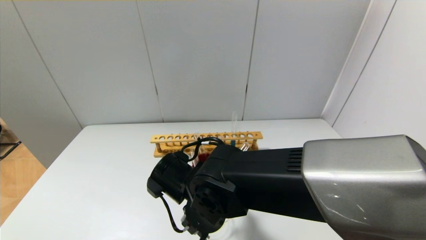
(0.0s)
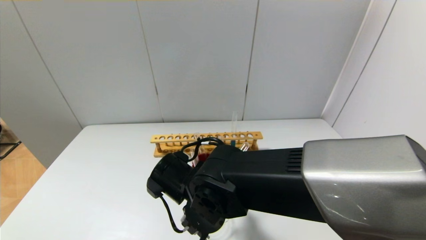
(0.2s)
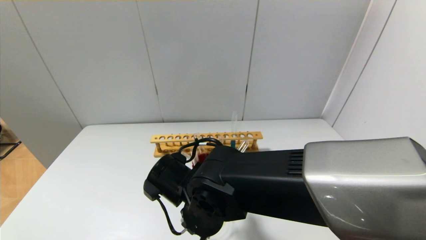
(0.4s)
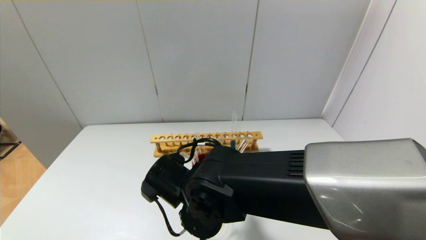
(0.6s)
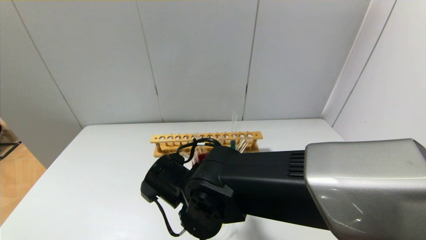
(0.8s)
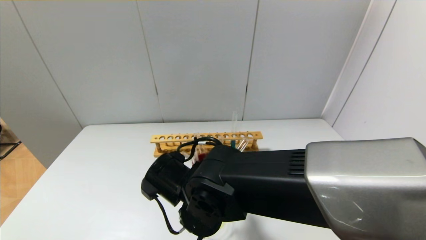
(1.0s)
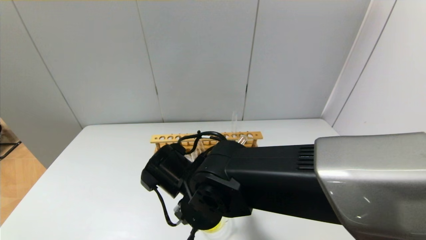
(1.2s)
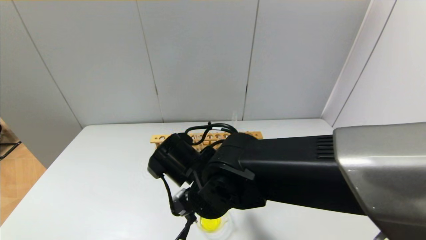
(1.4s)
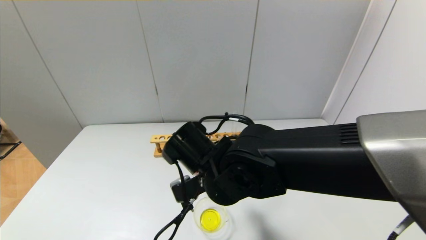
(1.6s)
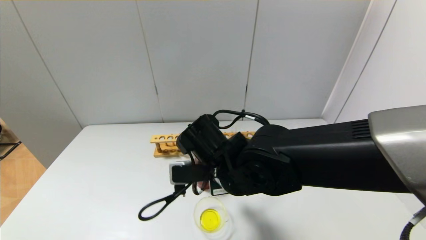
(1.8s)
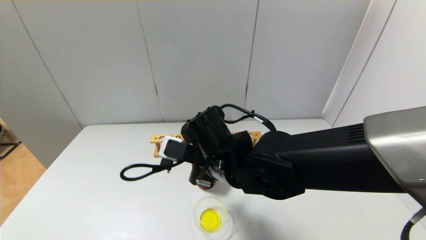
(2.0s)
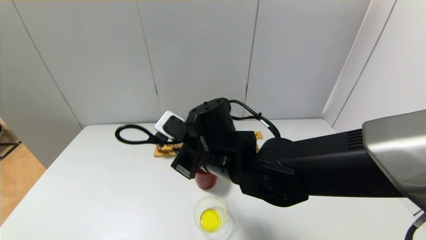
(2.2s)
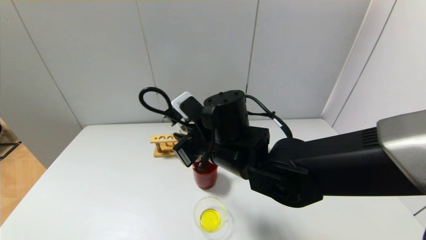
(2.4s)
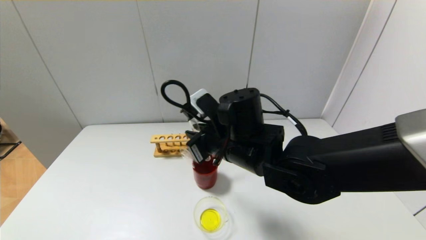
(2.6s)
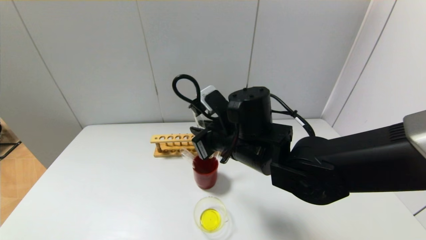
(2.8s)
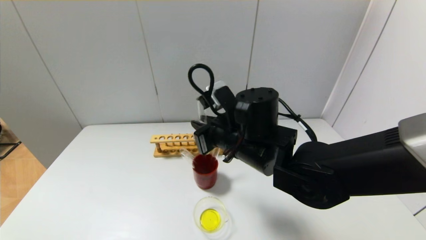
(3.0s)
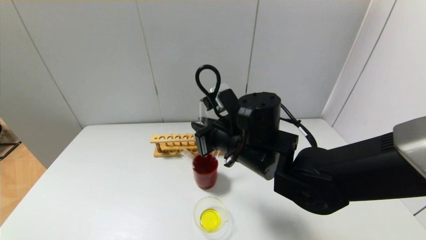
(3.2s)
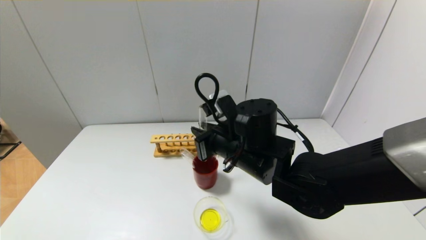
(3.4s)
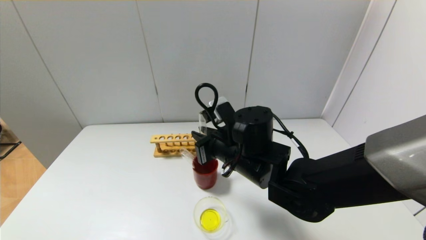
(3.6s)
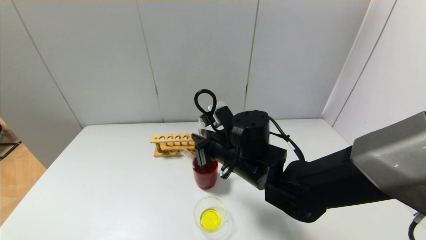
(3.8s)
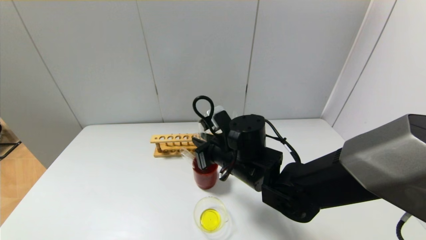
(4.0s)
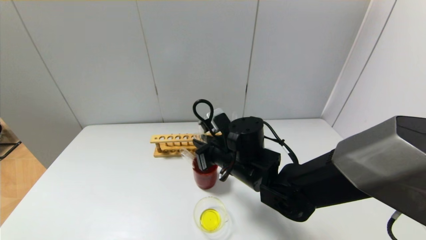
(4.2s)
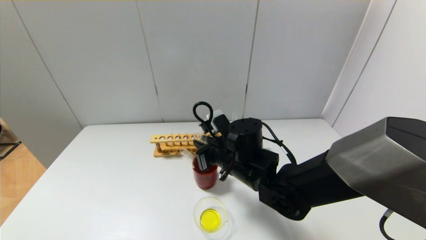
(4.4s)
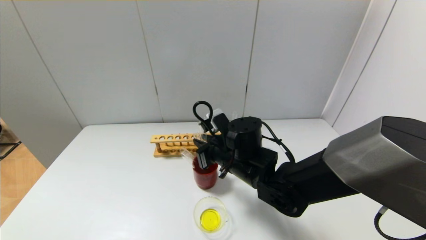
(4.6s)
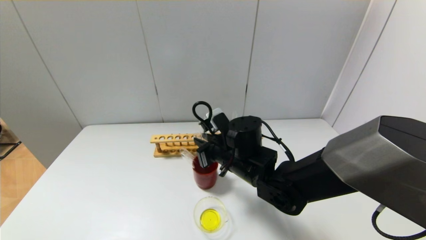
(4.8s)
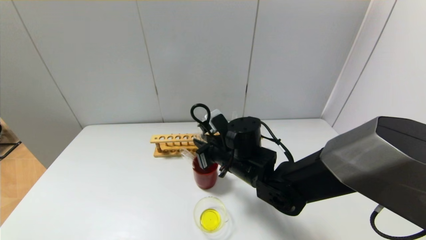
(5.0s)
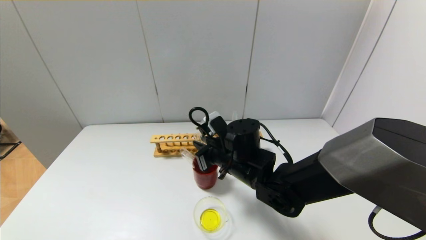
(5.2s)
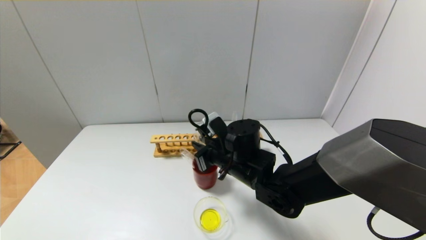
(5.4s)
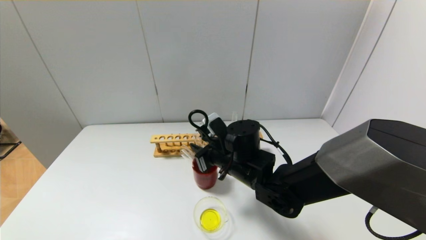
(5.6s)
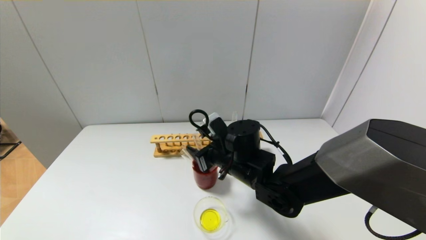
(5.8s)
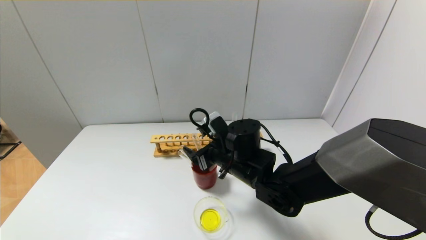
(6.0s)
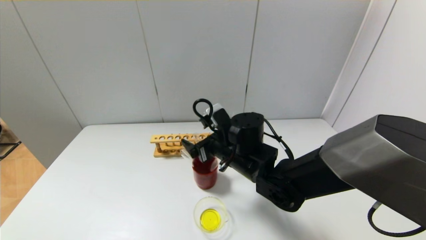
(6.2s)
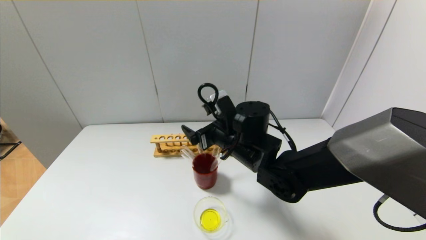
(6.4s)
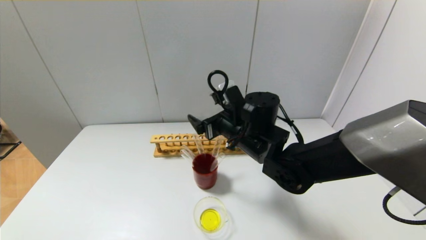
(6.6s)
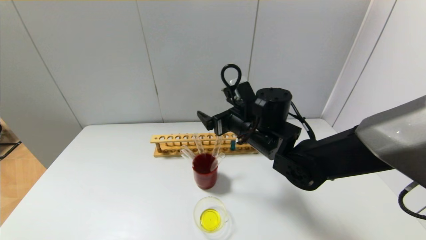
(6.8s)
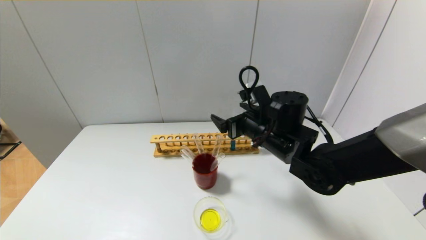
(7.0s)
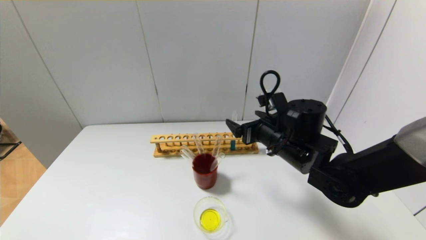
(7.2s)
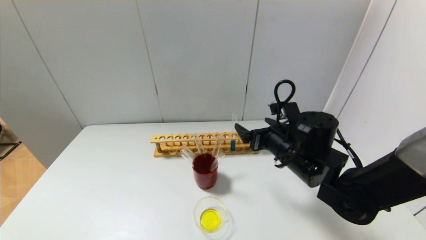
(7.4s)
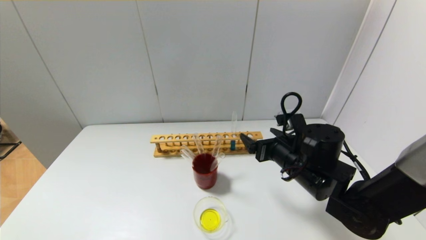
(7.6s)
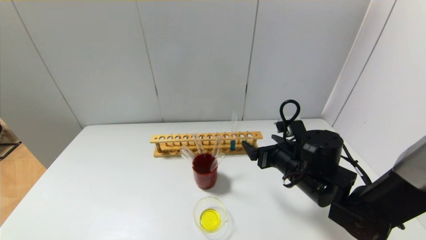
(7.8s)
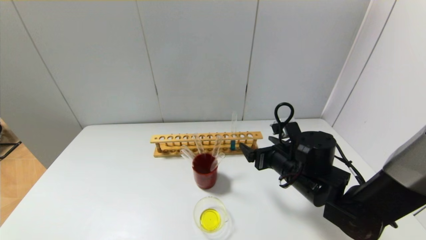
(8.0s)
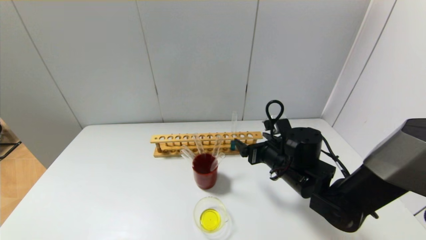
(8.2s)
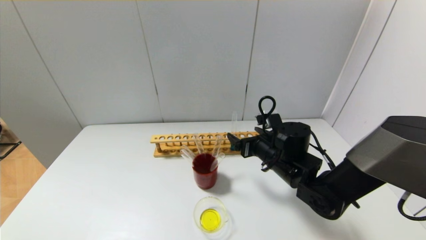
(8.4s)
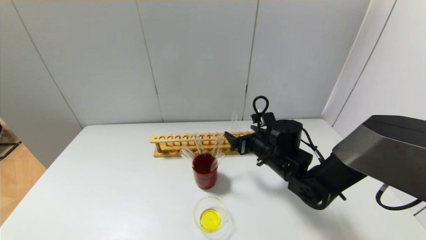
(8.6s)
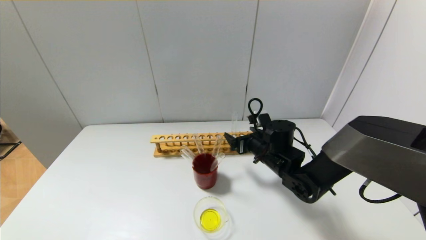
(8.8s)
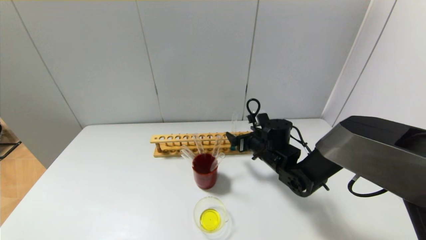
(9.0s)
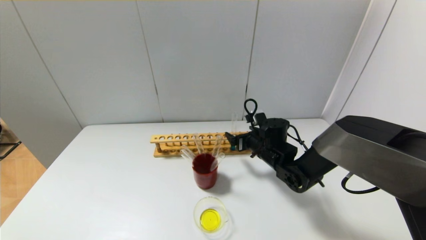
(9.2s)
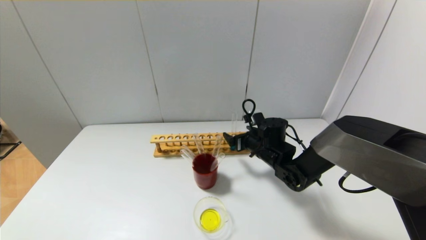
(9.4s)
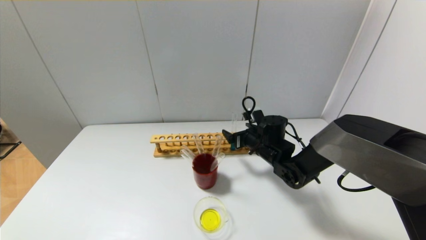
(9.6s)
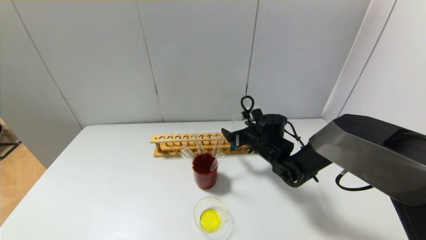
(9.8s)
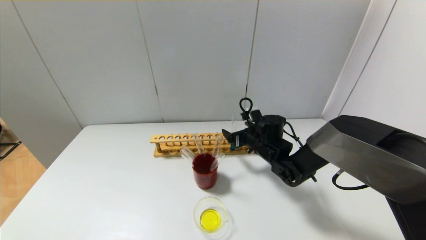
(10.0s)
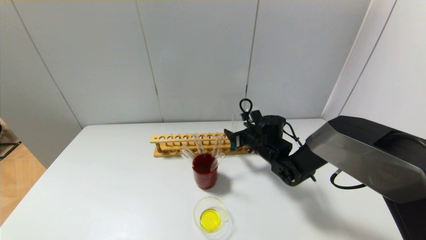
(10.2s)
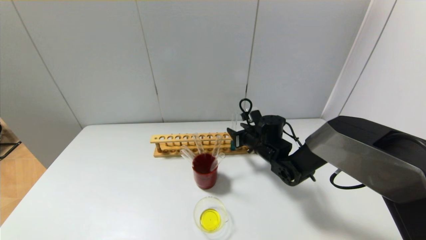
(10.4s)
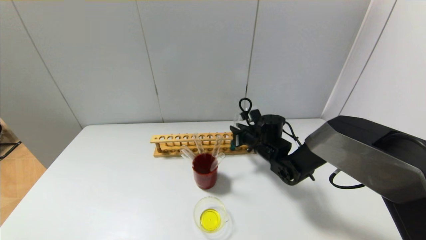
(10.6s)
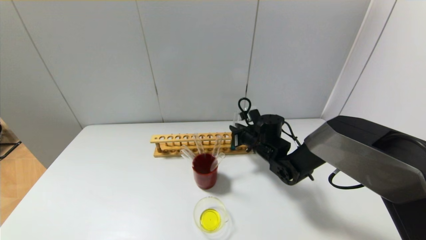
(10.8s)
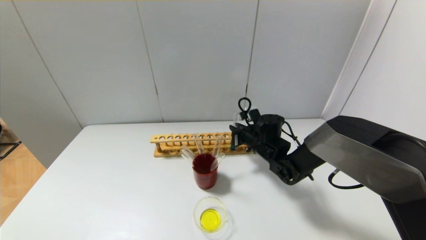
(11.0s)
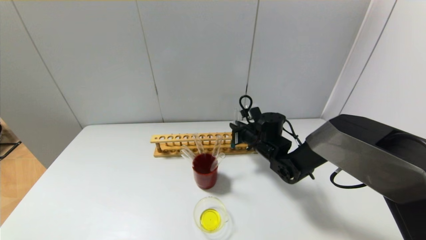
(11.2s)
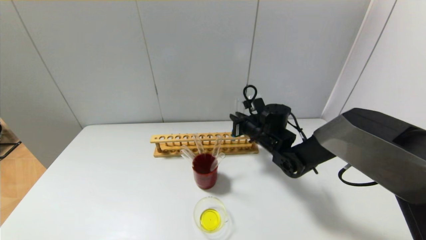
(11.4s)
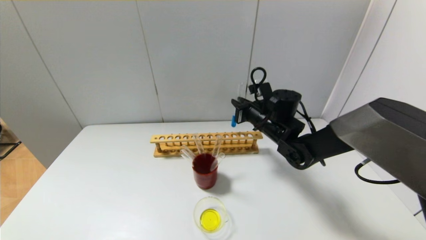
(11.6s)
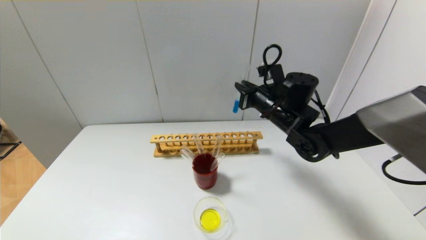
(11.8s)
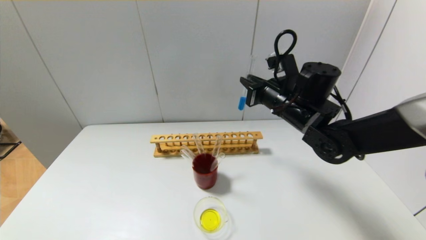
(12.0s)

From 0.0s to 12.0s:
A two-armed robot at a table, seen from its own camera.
Step, from 1.2s to 5.8s: Place the test tube into the brown cup with the right gripper.
Step, from 6.0s to 11.0s: Grasp the blue reagent with the right gripper.
From 1.6s to 3.0s: The right gripper ends up about 5 cm from where it was.
From 3.0s to 4.4s: The right gripper travels downward by some 5 cm.
From 4.4s to 6.0s: The right gripper opens its fingers.
From 6.0s to 7.6s: The right gripper heads to the right, covering approximately 10 cm.
From 7.6s to 9.0s: The right gripper heads forward and downward, covering about 10 cm.
From 9.0s to 10.4s: The right gripper closes up.
From 10.4s to 12.0s: The right gripper travels upward by roughly 15 cm, and closes up.

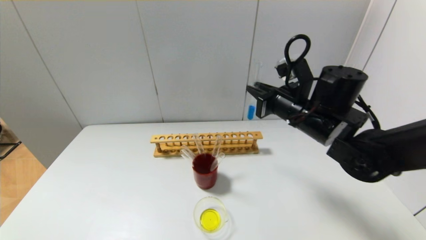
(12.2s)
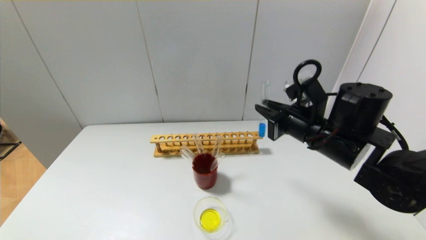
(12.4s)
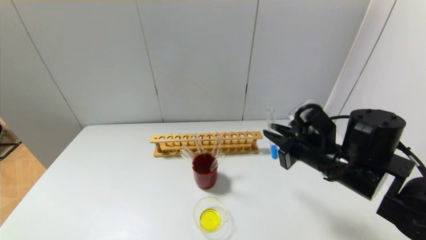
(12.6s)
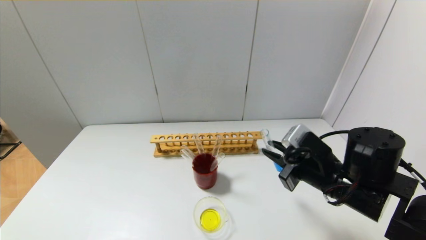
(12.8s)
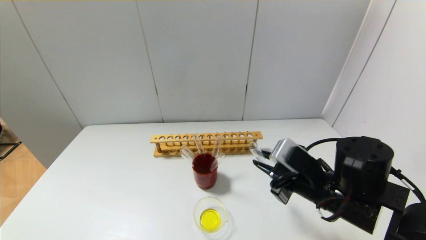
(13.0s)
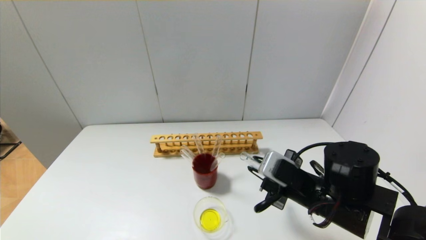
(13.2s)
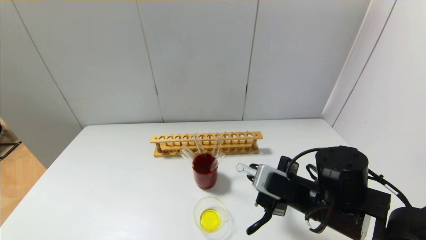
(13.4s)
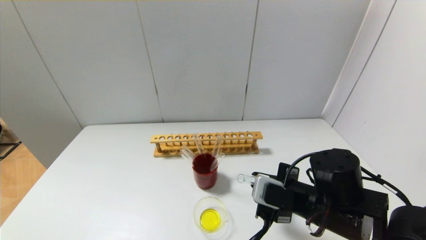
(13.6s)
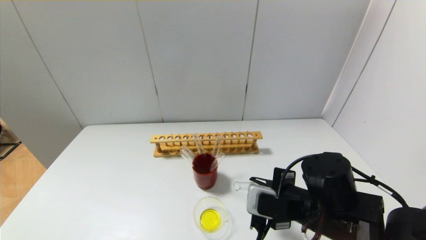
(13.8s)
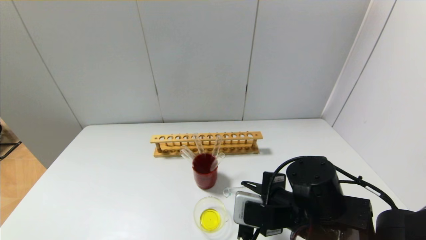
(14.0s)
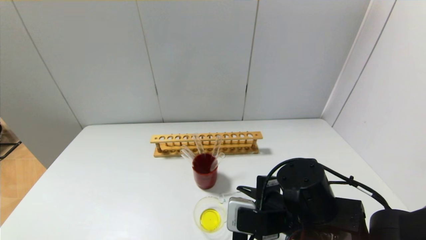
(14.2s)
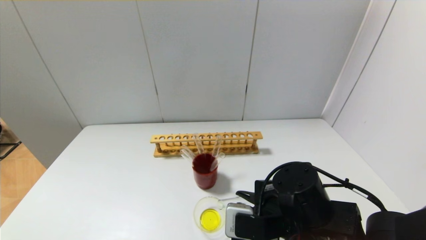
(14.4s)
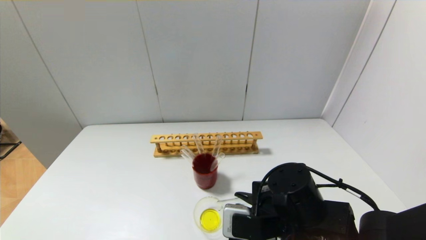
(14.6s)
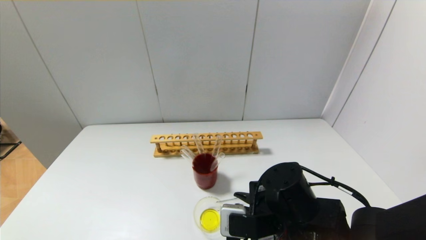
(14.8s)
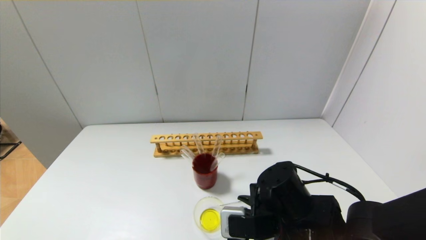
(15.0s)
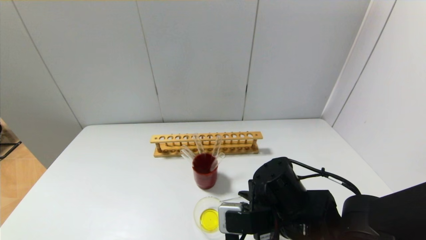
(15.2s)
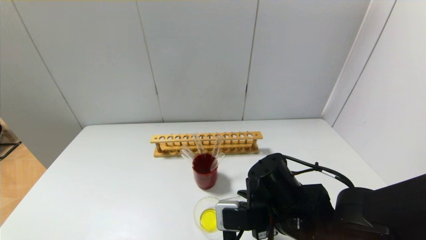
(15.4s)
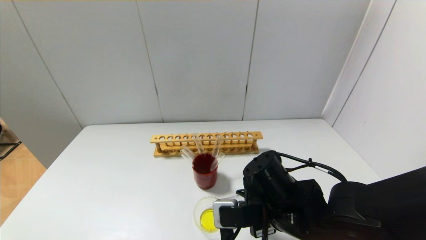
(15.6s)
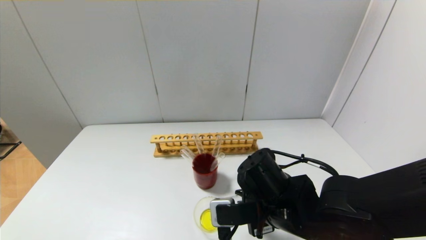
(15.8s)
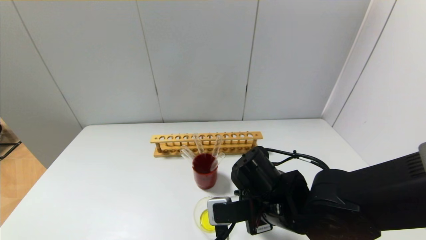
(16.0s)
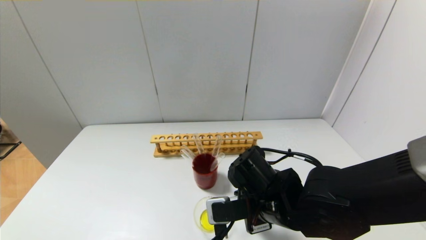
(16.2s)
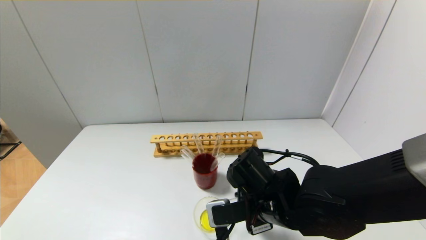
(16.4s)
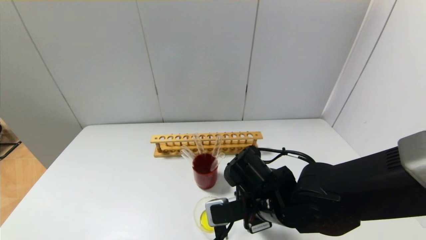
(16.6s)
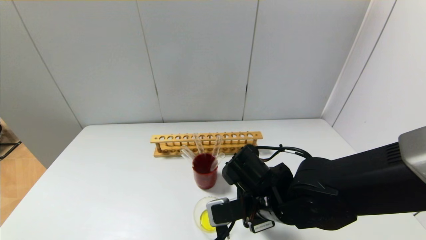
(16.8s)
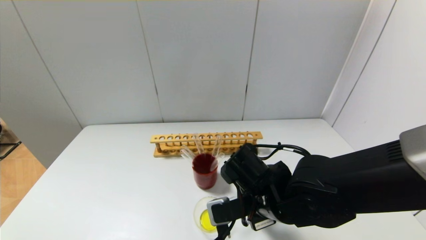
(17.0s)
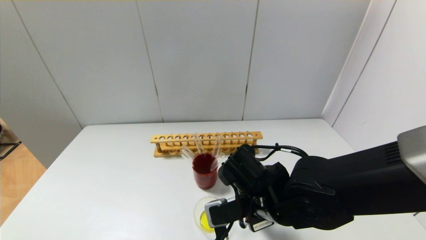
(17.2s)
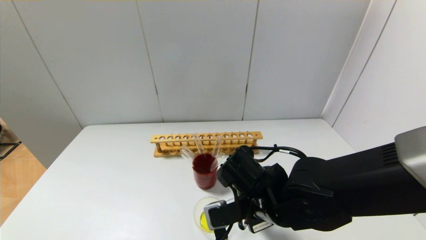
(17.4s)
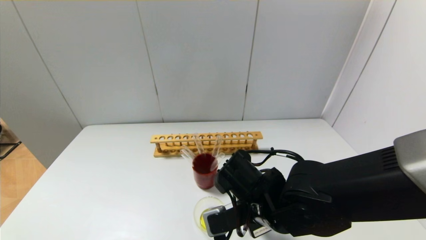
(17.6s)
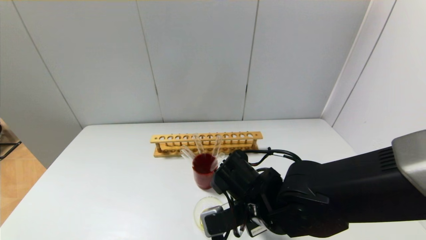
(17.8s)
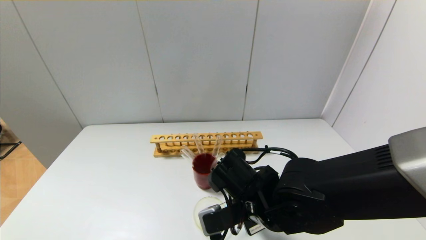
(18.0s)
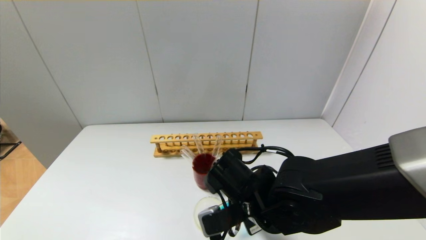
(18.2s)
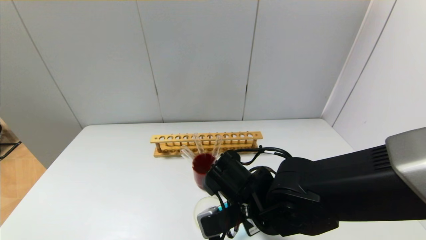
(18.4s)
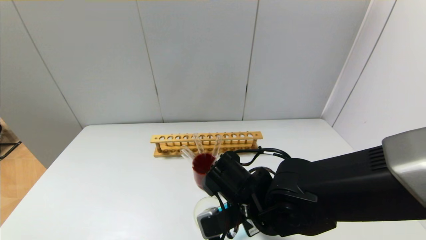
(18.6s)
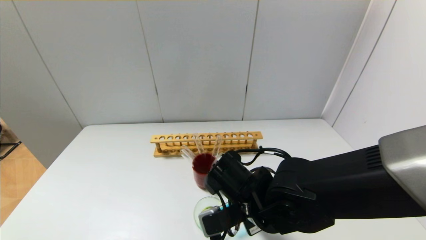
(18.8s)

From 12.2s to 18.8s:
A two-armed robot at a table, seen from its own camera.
From 12.2s to 13.8s: The right gripper is displaced backward and downward by about 15 cm.
From 13.8s to 15.4s: The grippers move only a little.
From 15.4s to 17.2s: The grippers make only small movements.
From 17.2s to 18.8s: The grippers move only a little.
